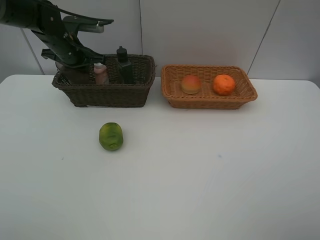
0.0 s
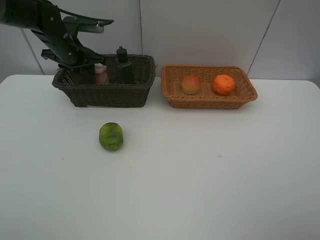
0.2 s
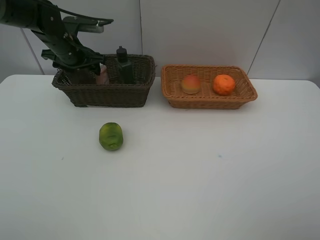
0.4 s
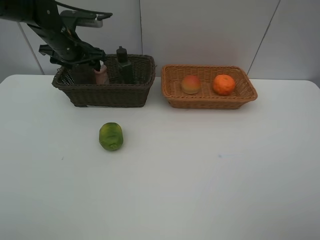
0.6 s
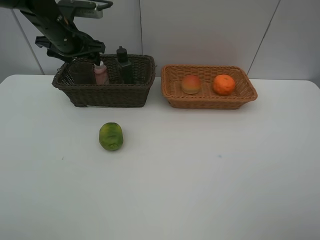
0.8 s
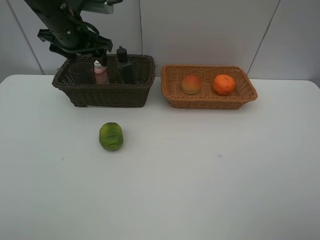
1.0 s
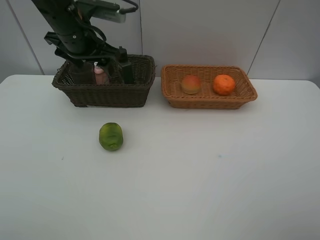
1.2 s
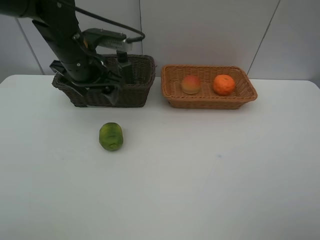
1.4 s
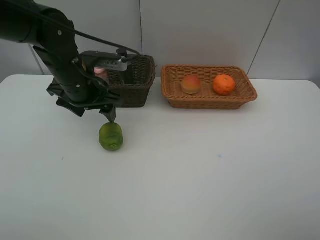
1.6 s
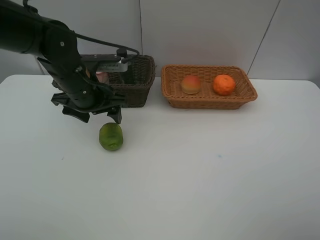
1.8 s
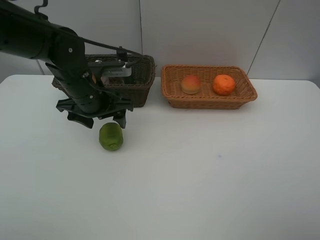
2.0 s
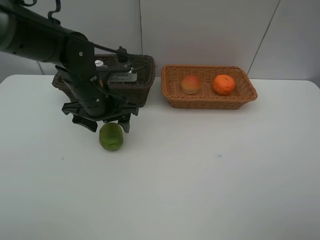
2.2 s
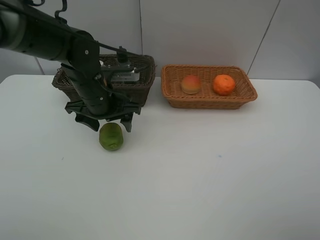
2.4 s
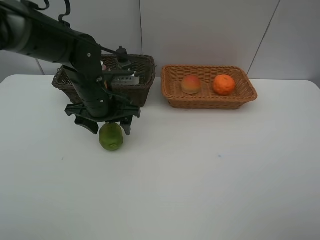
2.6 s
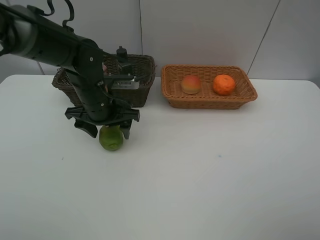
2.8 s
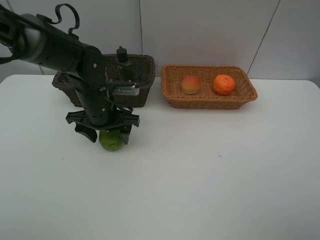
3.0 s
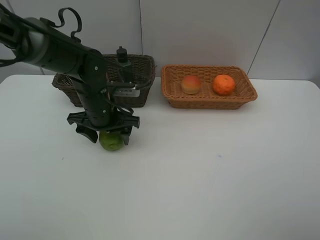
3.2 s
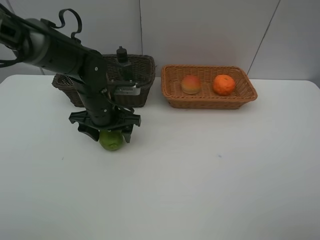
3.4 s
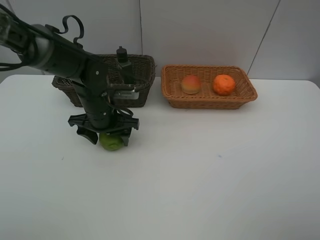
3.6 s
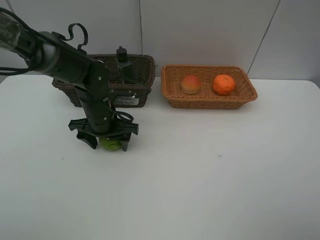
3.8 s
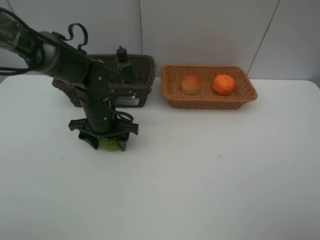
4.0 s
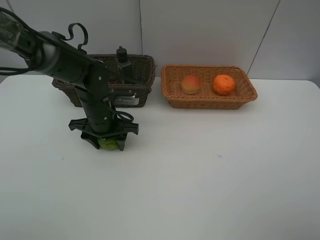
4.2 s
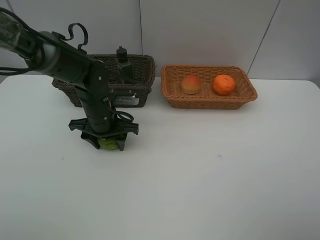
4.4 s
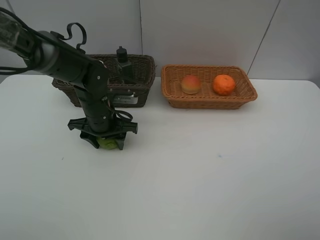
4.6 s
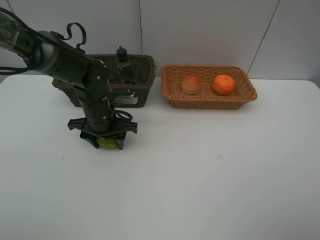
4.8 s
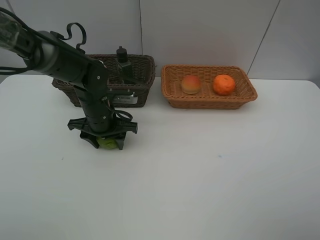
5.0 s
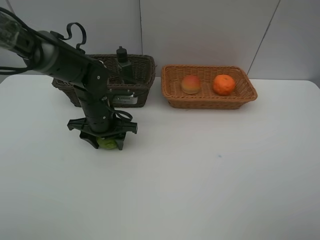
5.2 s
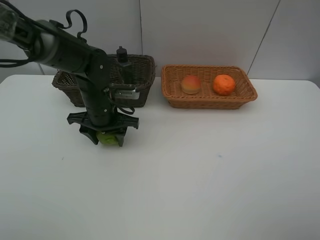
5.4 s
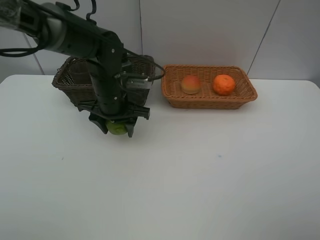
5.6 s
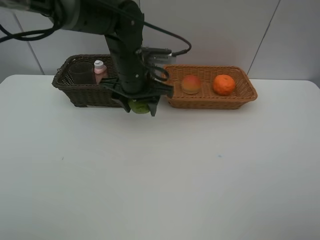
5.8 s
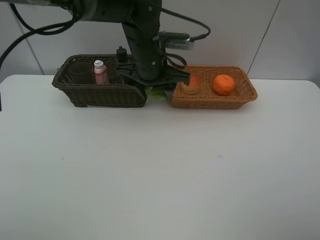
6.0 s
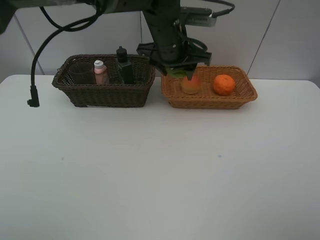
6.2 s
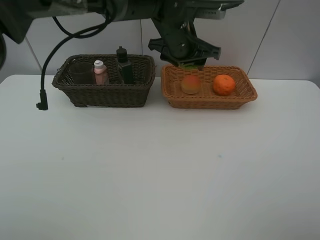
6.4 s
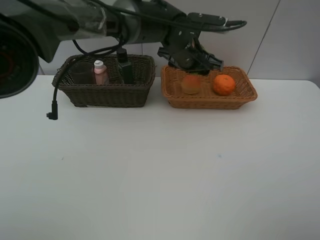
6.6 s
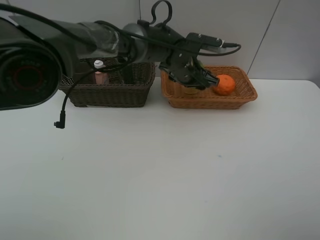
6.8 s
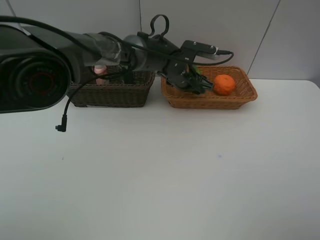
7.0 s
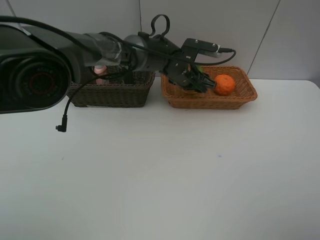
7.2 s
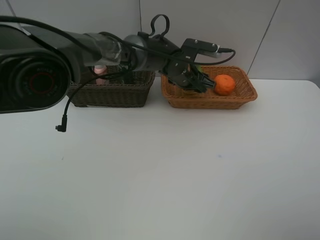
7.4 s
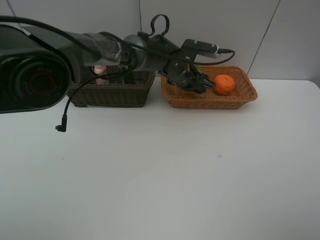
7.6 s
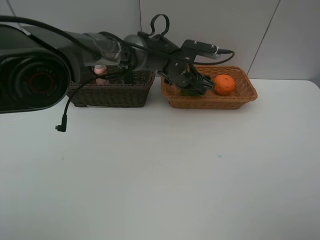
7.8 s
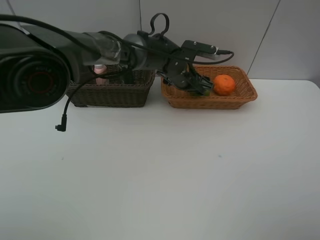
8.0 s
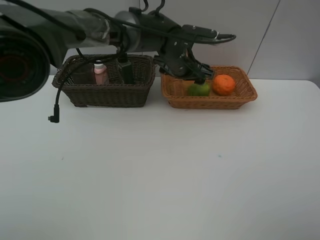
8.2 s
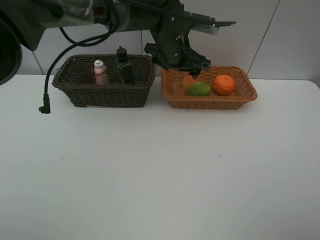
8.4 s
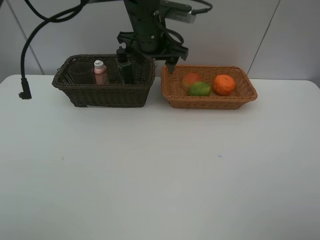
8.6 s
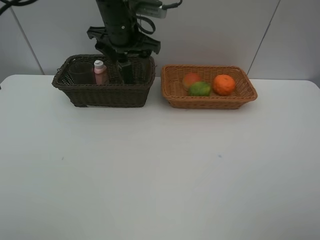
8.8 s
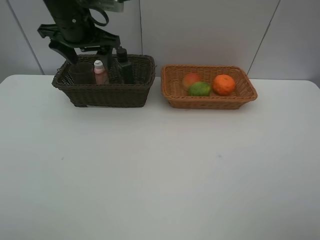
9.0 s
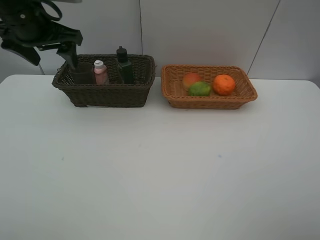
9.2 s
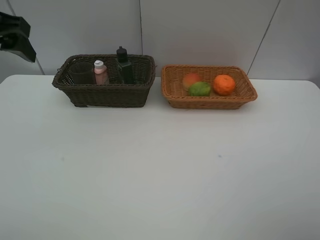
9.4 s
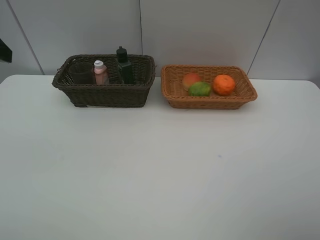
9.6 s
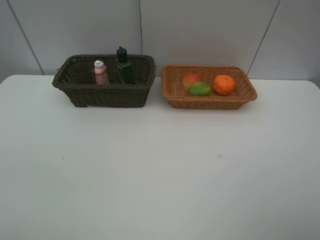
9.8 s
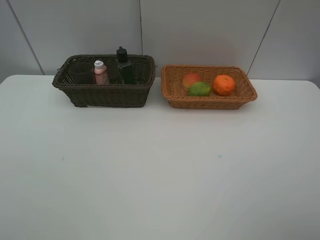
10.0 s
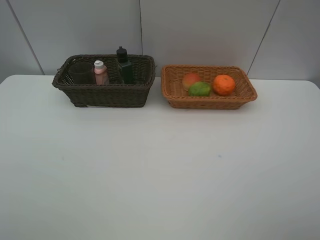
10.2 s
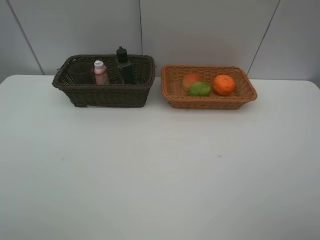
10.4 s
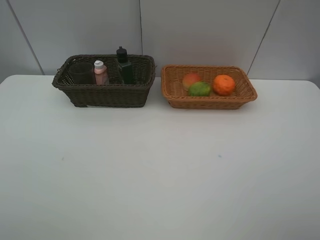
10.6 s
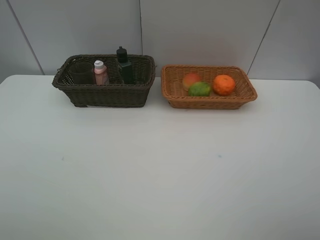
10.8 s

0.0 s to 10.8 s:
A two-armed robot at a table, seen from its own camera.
Task of the whole recording: place multiple objects separately in different baskets.
0.0 to 1.6 s: The left gripper moves backward and to the right, some 15 cm, and opens.
1.6 to 3.0 s: The left gripper travels downward by roughly 5 cm.
3.0 to 4.6 s: There are only small adjustments of the grippers.
4.6 to 6.2 s: The left gripper is displaced to the right, upward and forward by some 20 cm.
6.2 to 7.8 s: The left gripper moves downward, approximately 10 cm.
7.8 to 9.2 s: The left gripper travels to the left and upward by approximately 35 cm.
9.2 to 10.8 s: The left gripper travels backward by some 30 cm.
